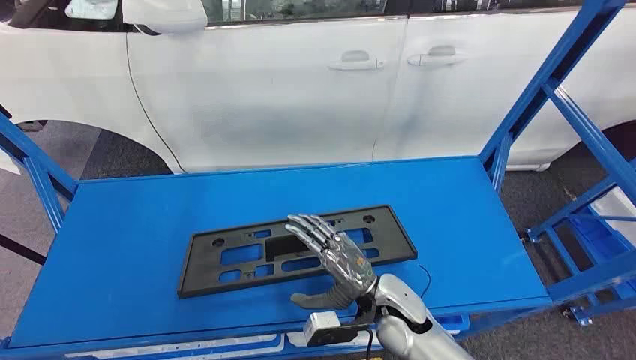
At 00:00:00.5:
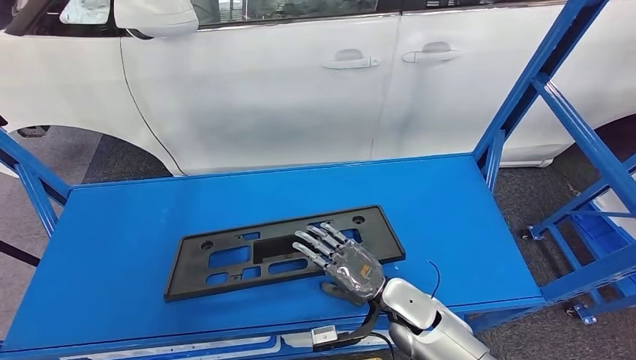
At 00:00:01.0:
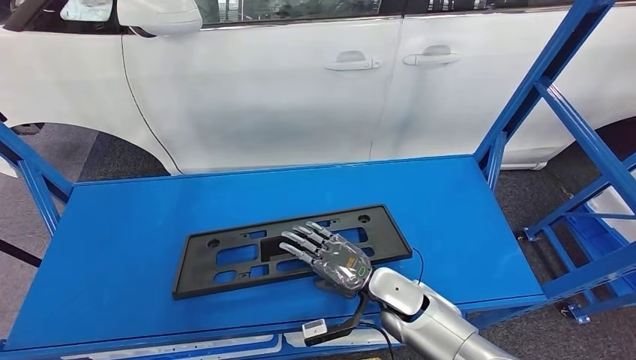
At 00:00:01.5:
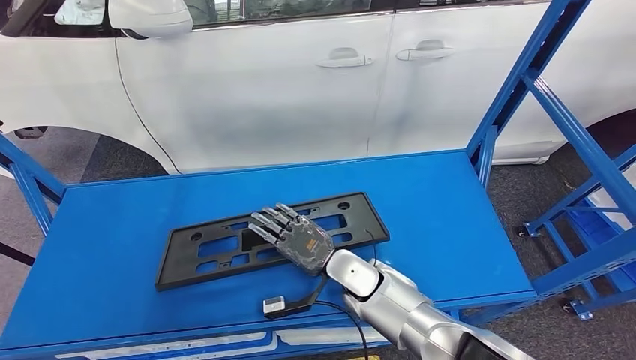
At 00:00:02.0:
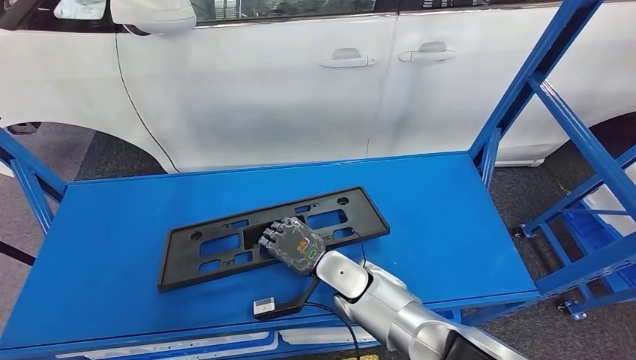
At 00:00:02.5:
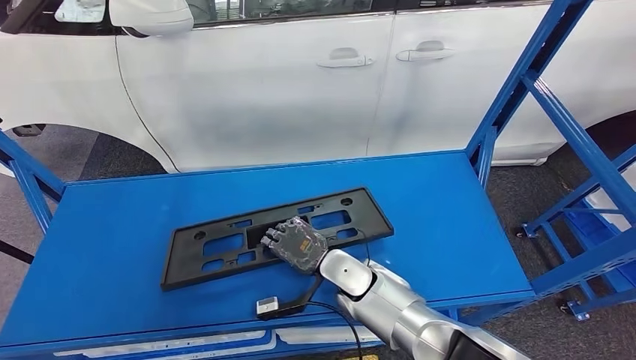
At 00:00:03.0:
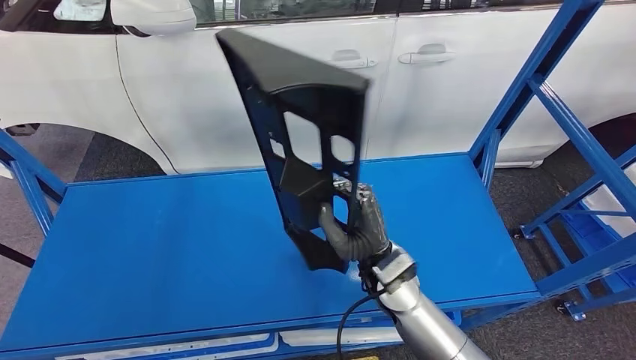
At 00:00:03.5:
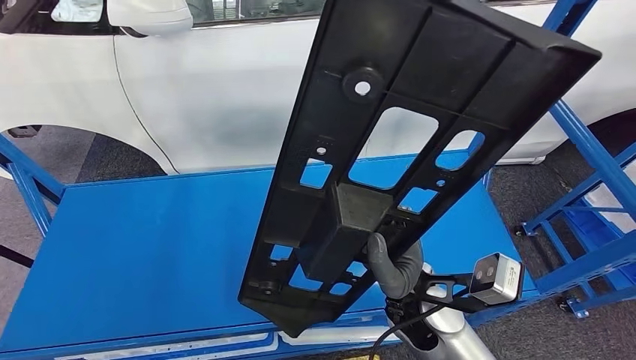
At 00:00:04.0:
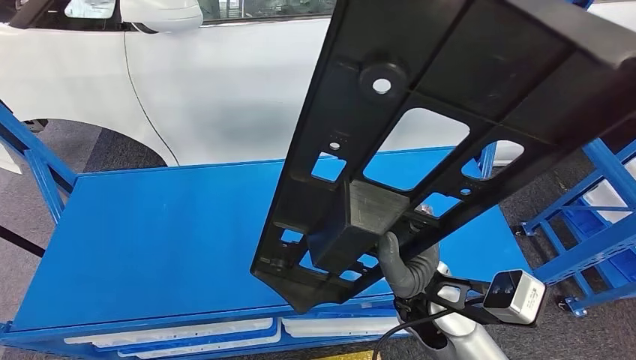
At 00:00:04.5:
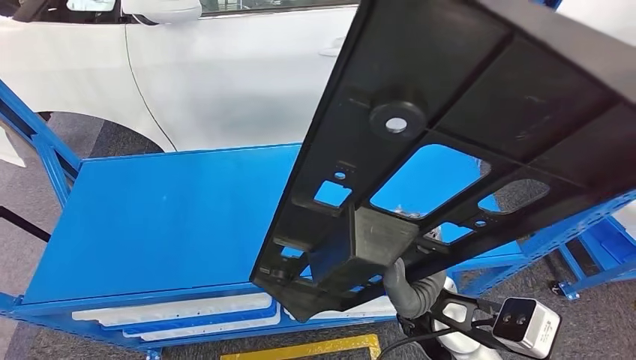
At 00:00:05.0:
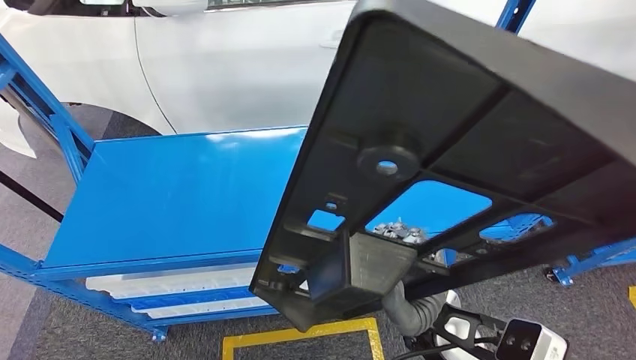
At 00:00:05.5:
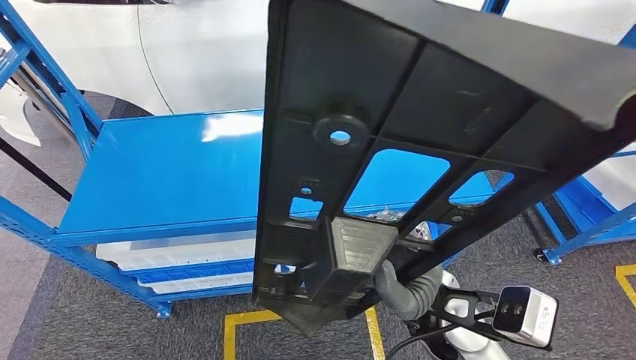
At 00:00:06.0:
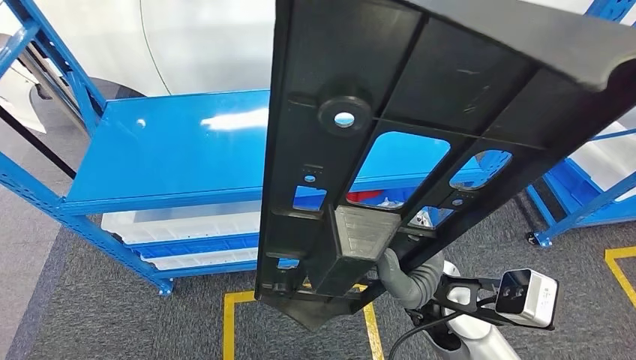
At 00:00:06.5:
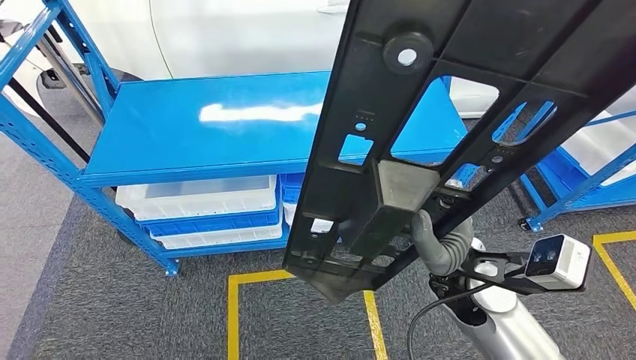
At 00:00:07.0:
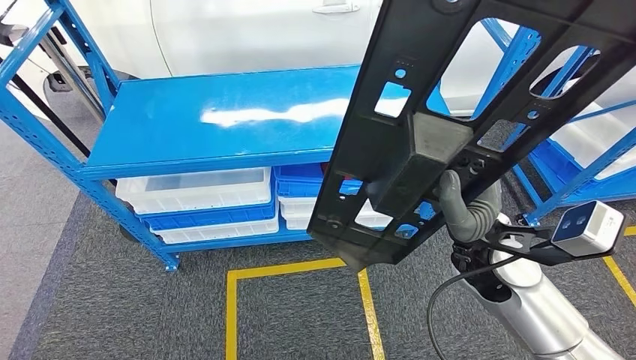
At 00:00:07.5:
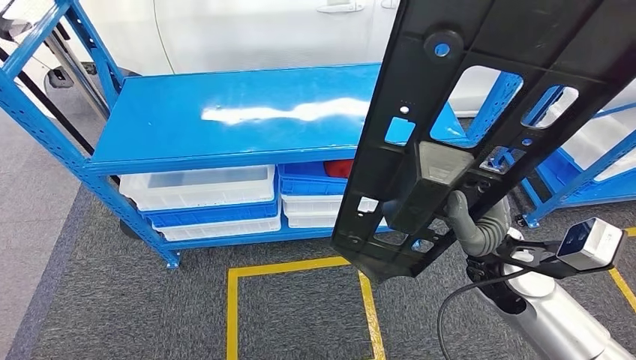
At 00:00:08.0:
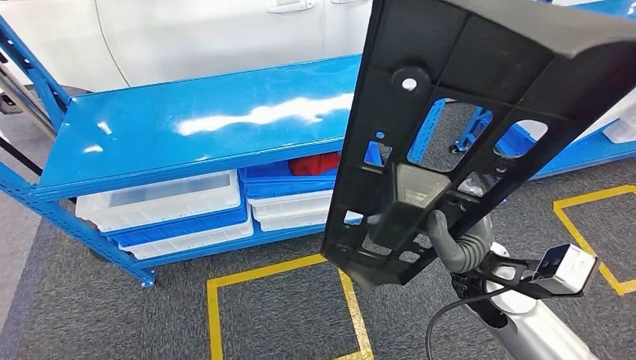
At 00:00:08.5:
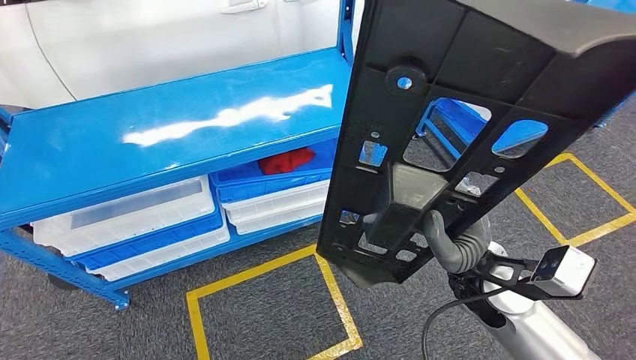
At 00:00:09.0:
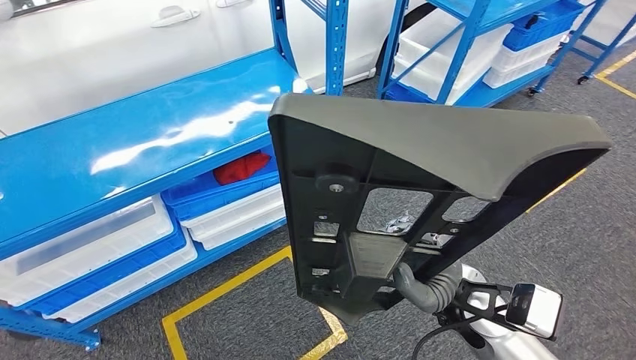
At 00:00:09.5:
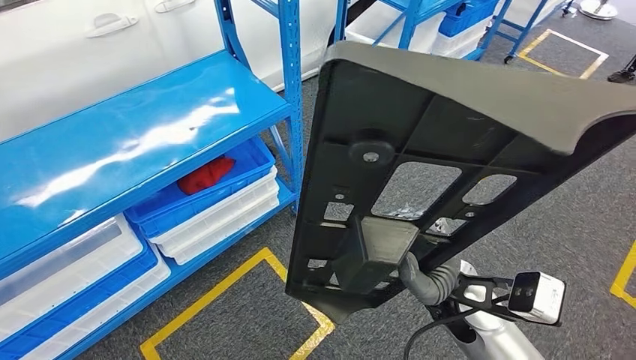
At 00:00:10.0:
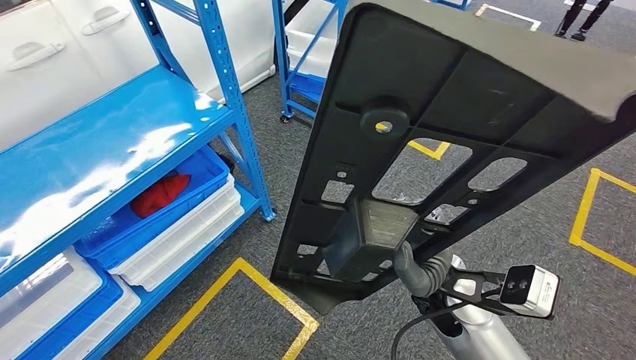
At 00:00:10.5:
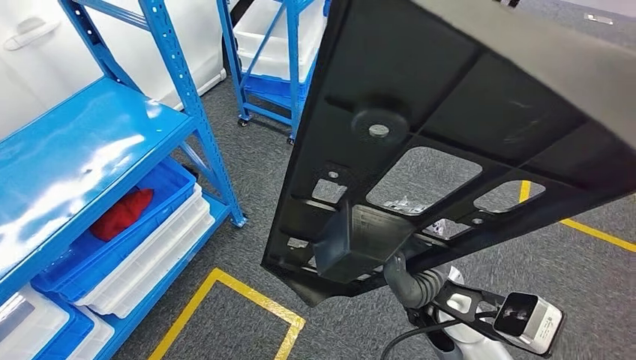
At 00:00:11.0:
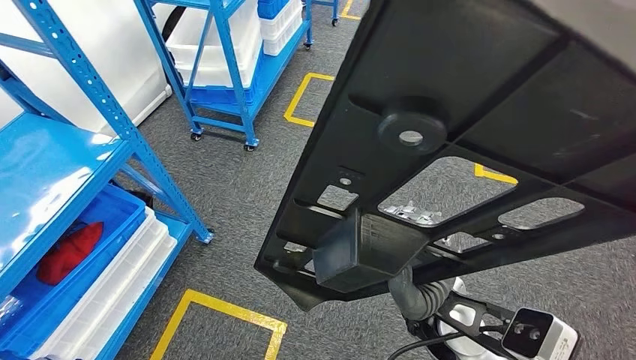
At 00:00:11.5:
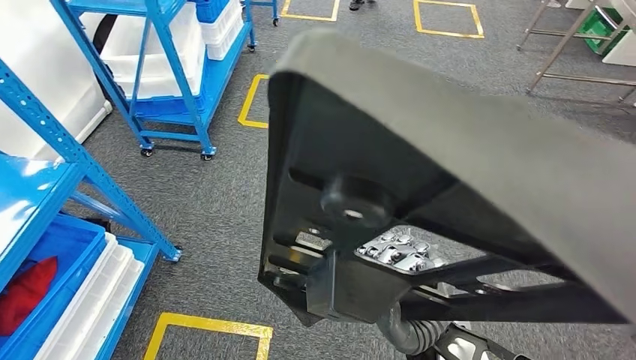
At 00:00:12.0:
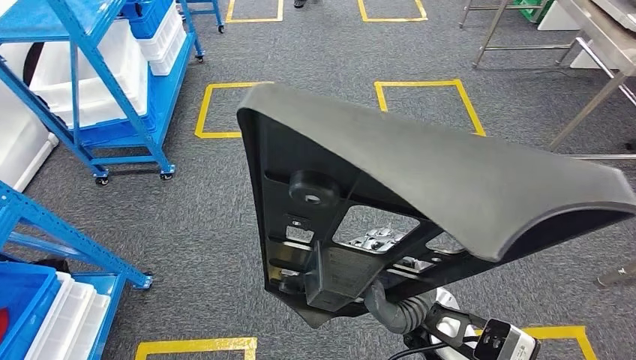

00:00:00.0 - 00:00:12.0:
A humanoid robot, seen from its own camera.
Step, 00:00:00.0 - 00:00:04.0: Pick up the large parts from the shelf.

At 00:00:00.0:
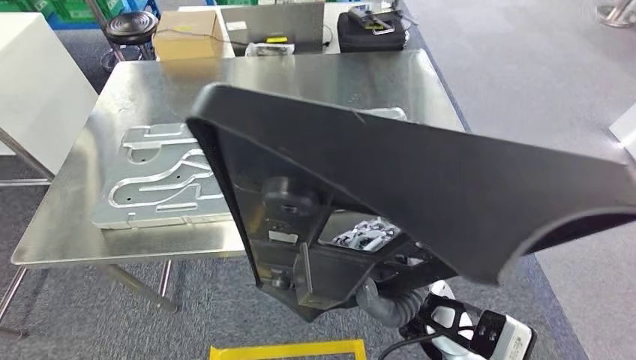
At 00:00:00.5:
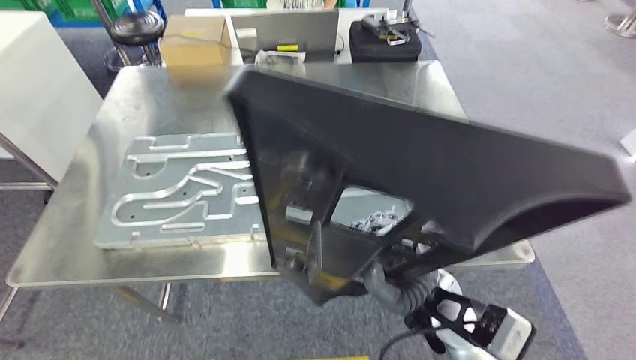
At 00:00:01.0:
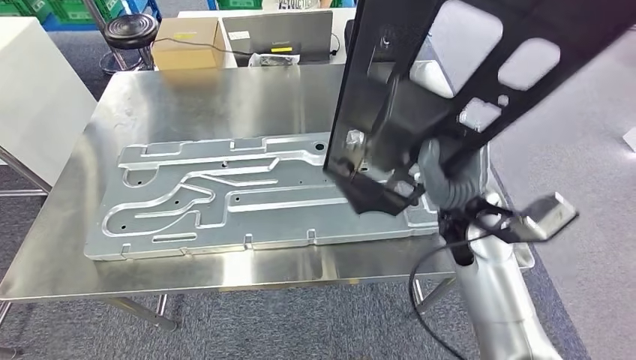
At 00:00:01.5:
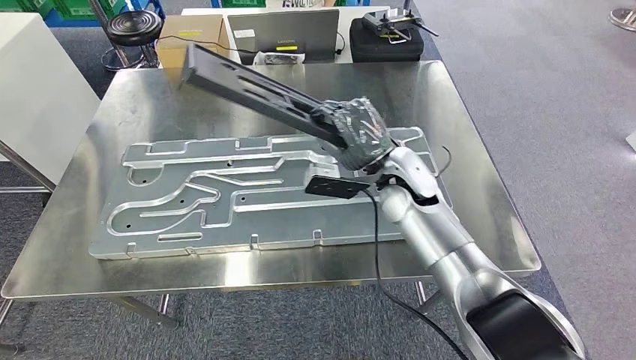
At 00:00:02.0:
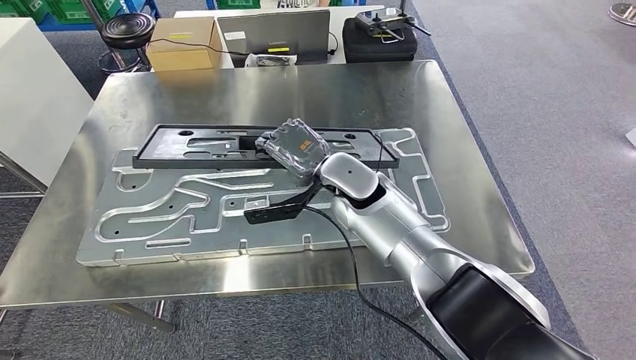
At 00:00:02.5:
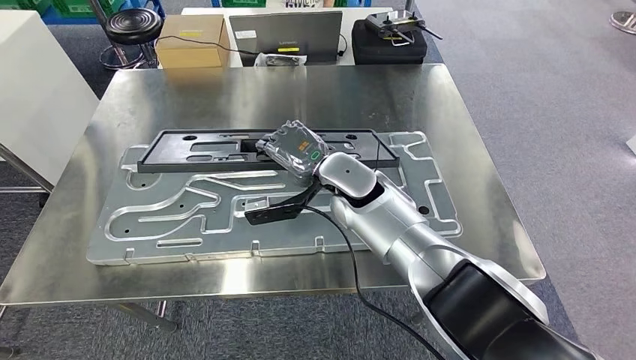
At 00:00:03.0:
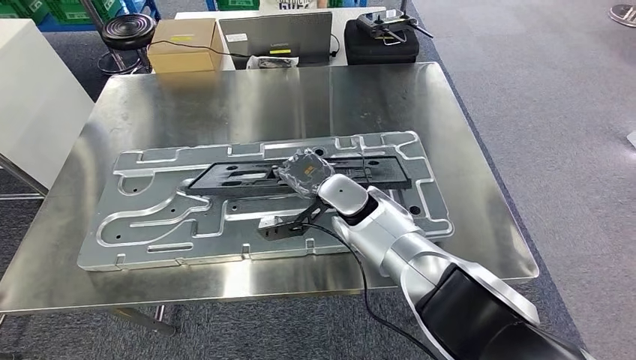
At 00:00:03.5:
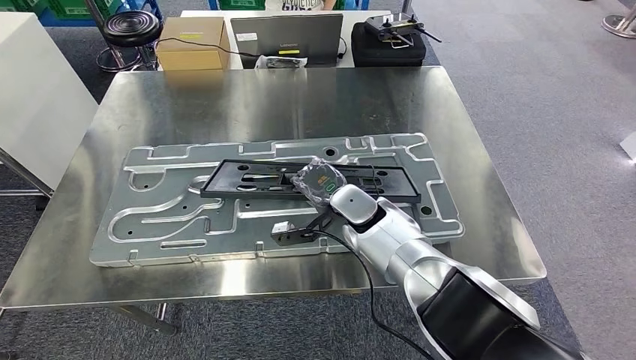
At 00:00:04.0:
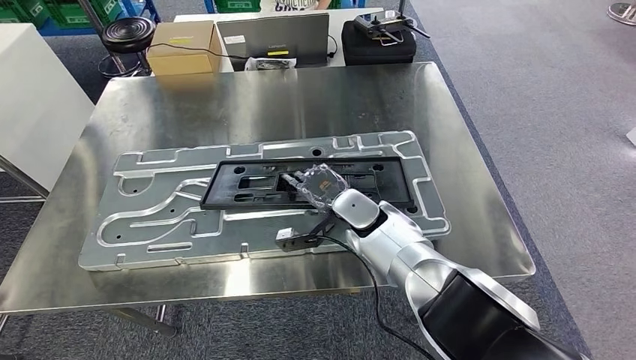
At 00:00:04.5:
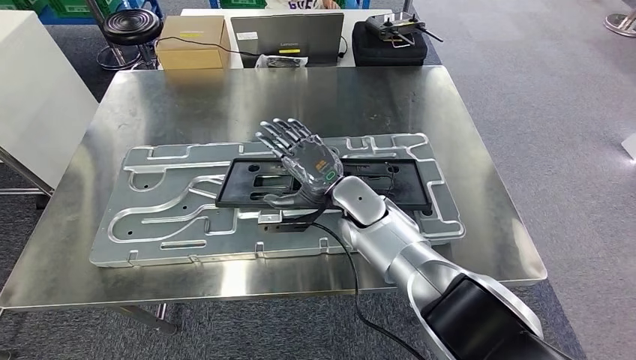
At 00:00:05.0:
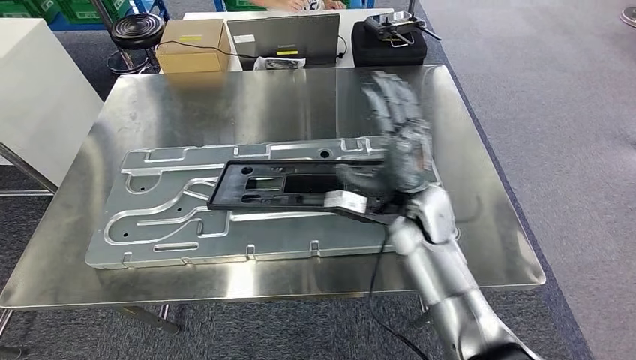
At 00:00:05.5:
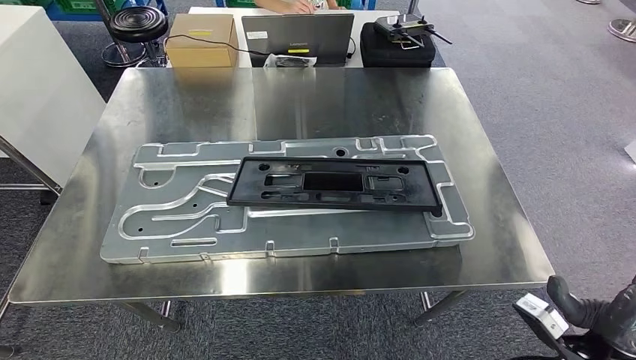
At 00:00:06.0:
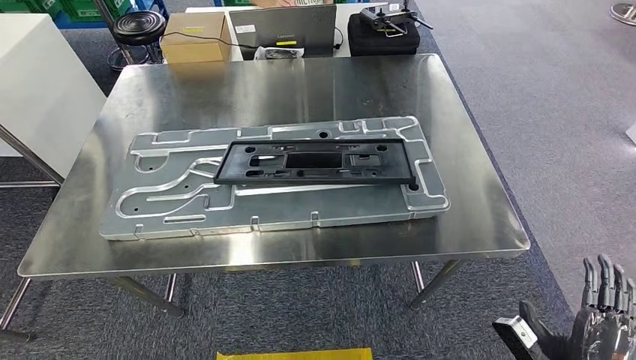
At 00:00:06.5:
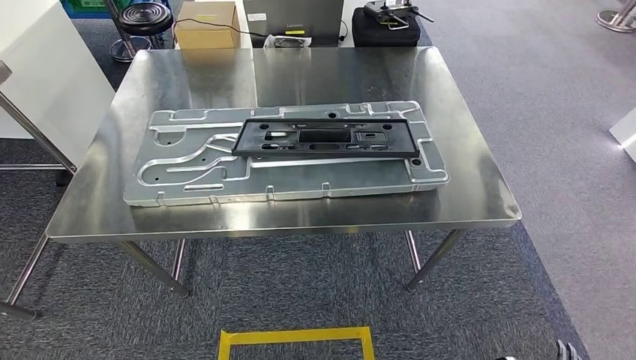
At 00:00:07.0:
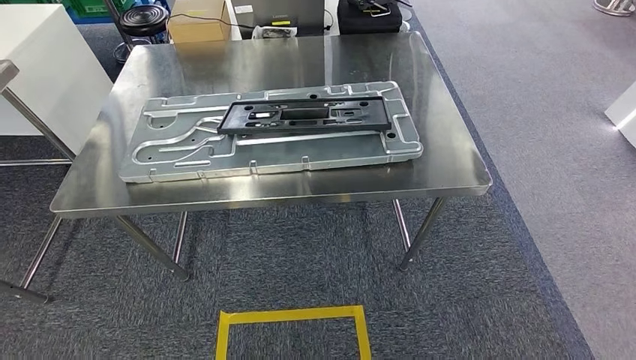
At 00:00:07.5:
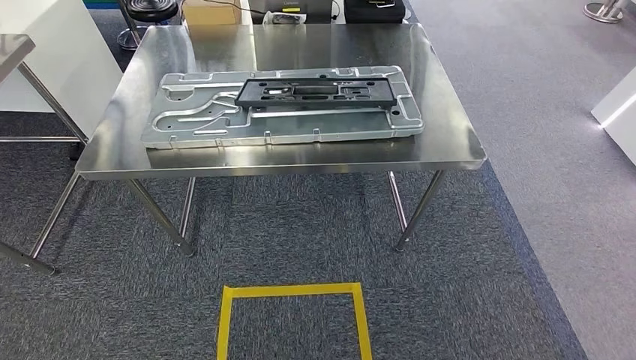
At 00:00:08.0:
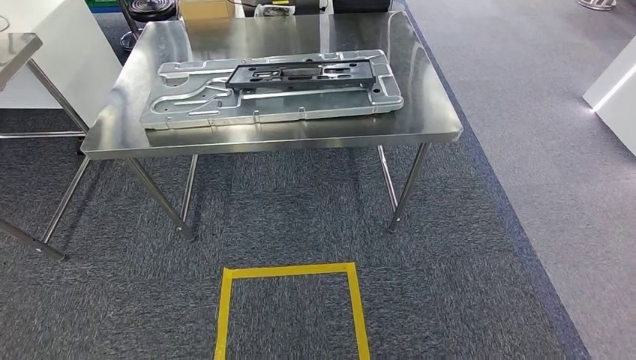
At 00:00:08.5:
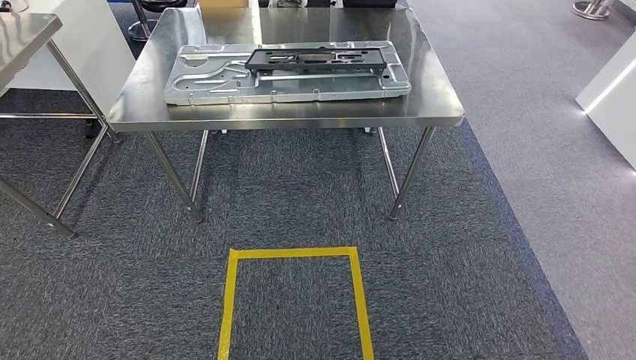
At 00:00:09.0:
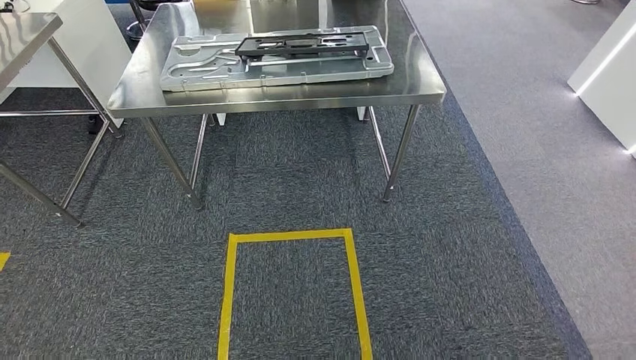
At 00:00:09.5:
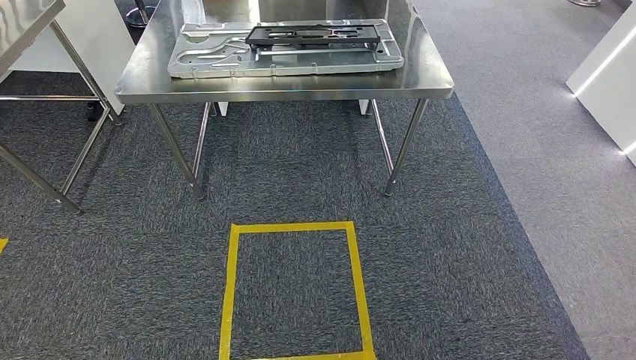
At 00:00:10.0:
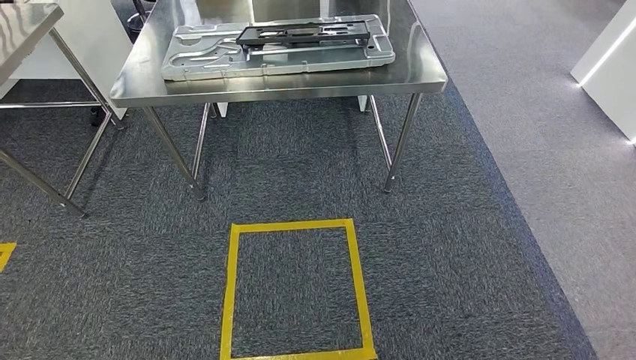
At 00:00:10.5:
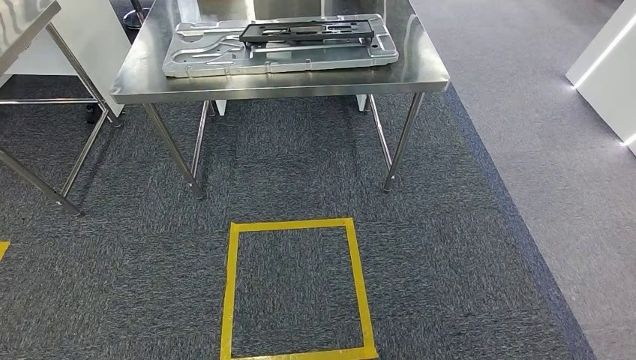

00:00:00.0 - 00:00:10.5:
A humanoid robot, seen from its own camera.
Step, 00:00:00.0 - 00:00:02.0: Move the large parts to the workbench.
Step, 00:00:02.5 - 00:00:06.0: Insert the large parts into the corresponding slots on the workbench.
Step, 00:00:06.5 - 00:00:10.5: Return to the initial position at the shelf.
